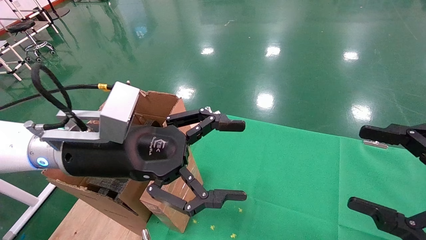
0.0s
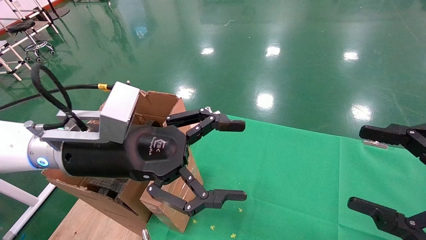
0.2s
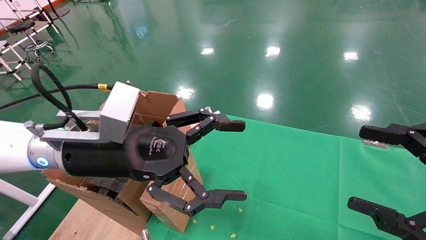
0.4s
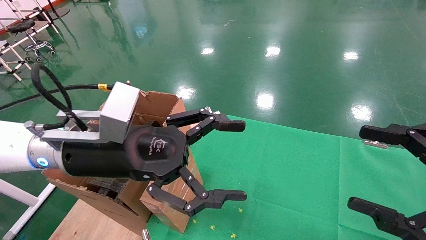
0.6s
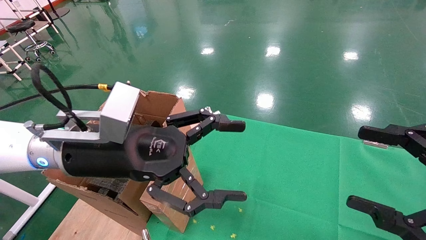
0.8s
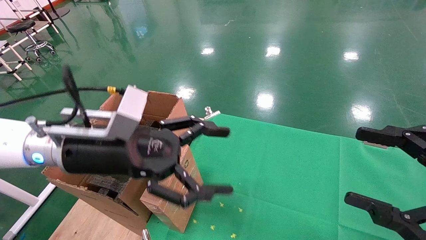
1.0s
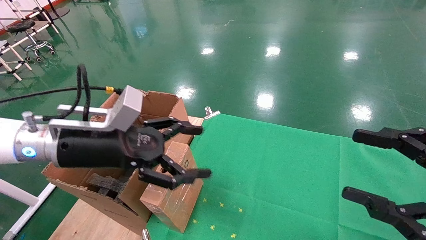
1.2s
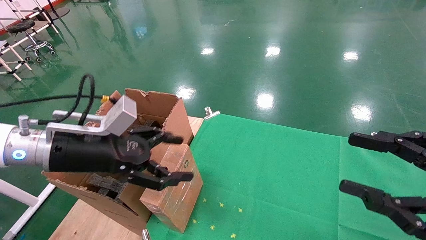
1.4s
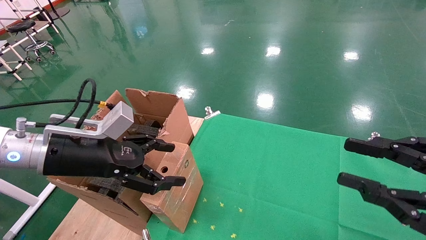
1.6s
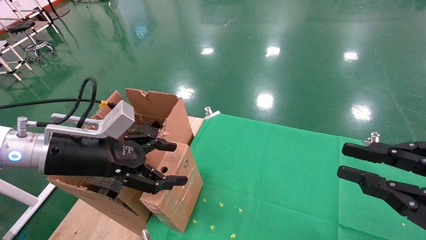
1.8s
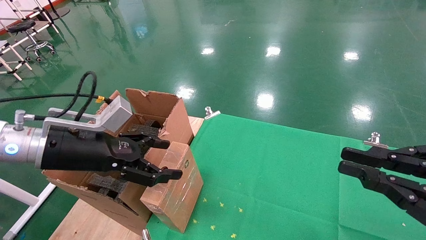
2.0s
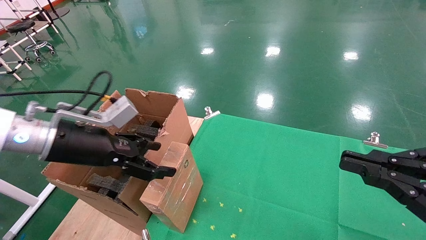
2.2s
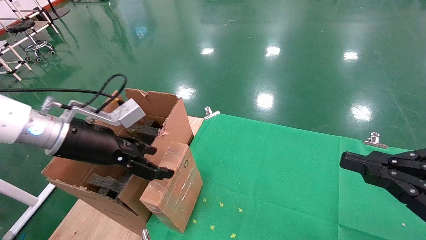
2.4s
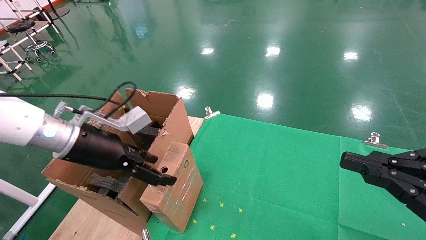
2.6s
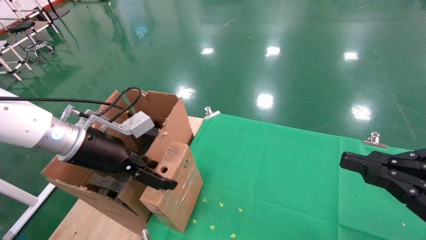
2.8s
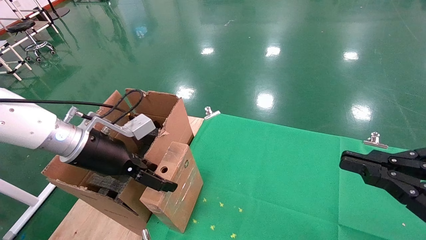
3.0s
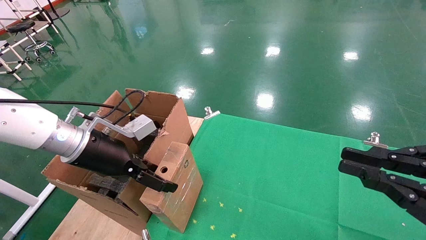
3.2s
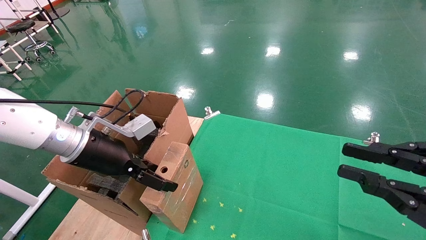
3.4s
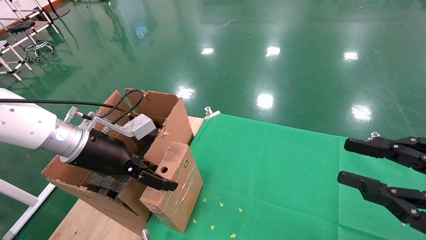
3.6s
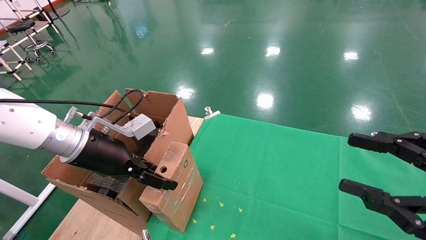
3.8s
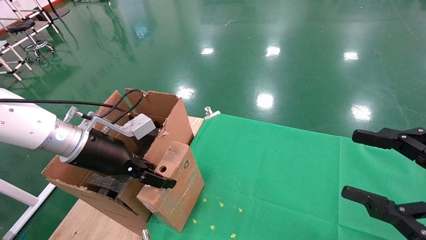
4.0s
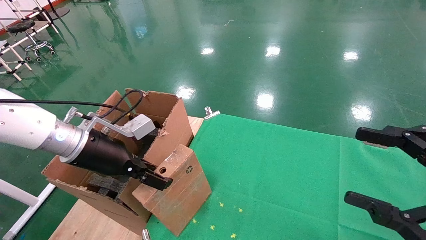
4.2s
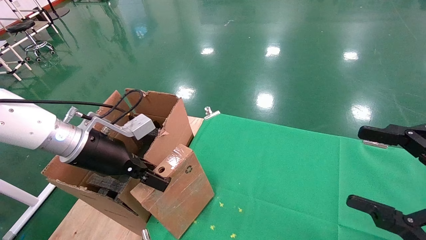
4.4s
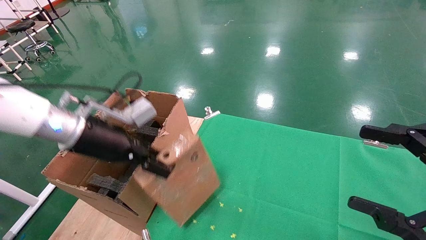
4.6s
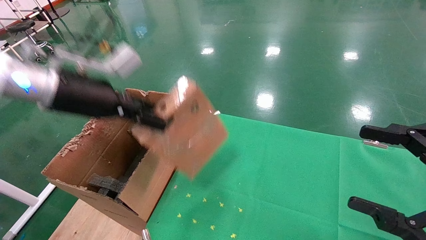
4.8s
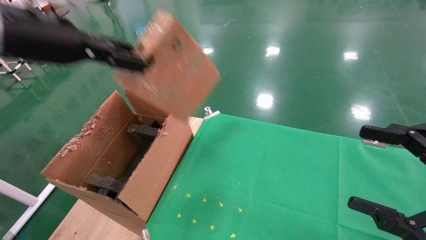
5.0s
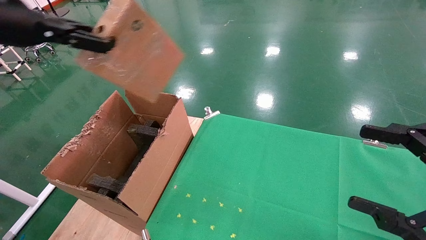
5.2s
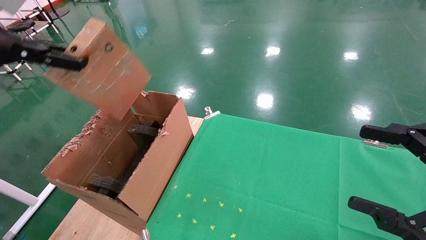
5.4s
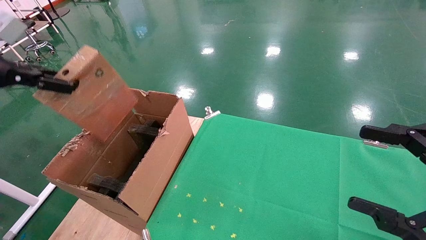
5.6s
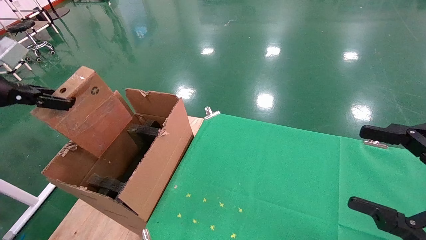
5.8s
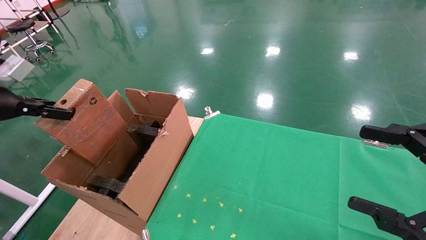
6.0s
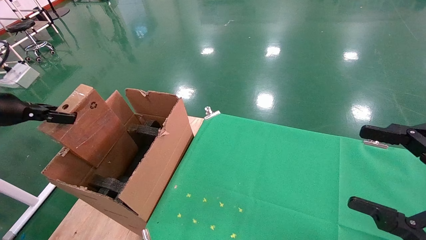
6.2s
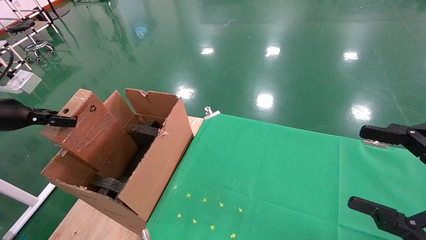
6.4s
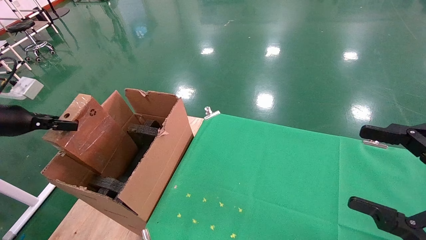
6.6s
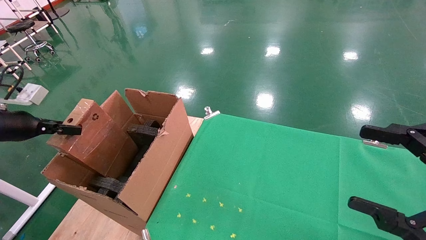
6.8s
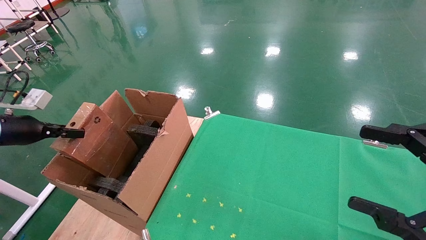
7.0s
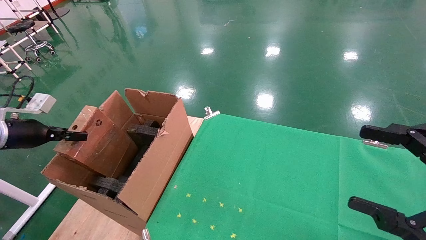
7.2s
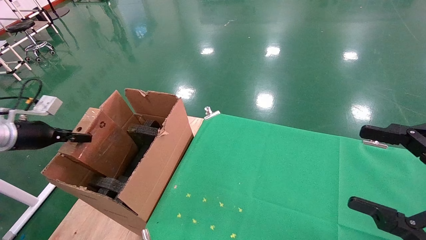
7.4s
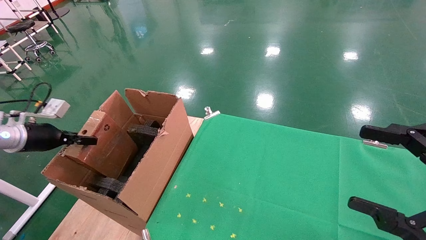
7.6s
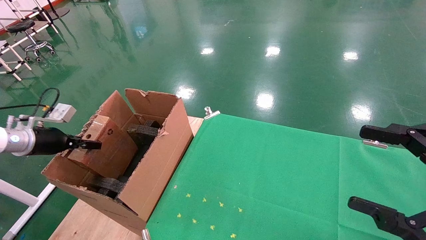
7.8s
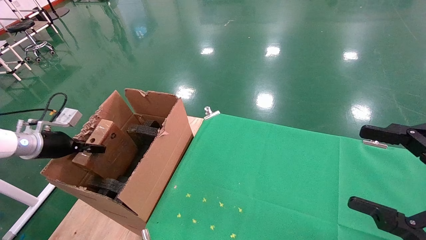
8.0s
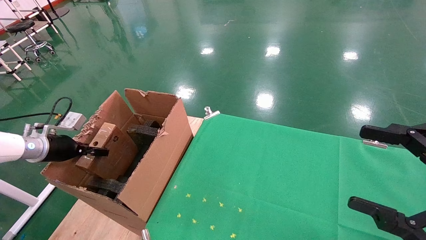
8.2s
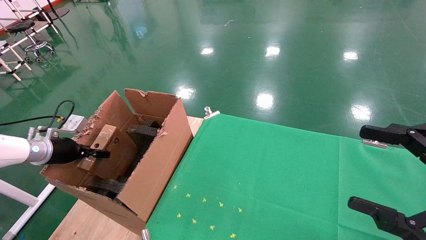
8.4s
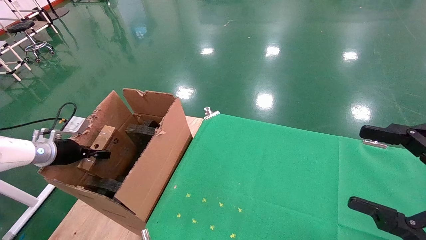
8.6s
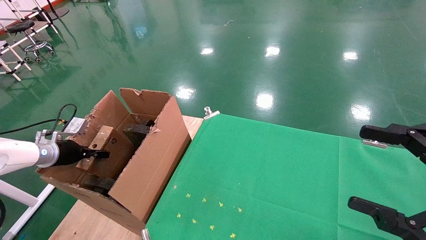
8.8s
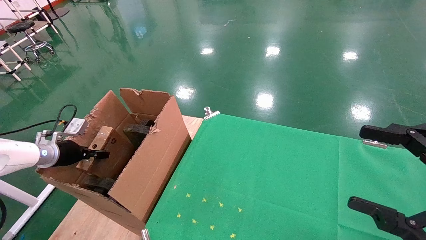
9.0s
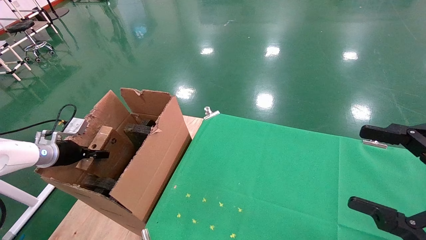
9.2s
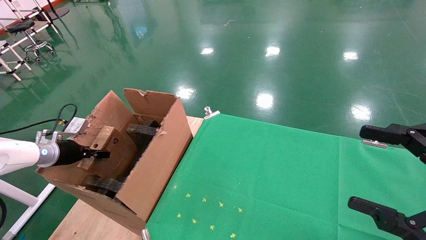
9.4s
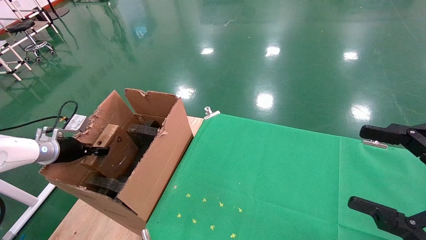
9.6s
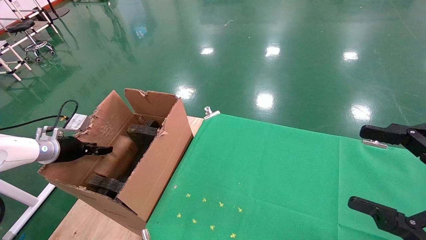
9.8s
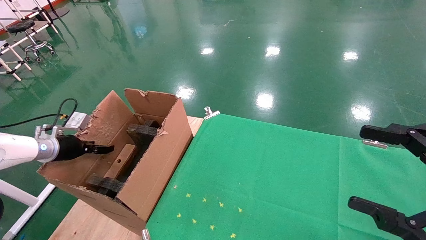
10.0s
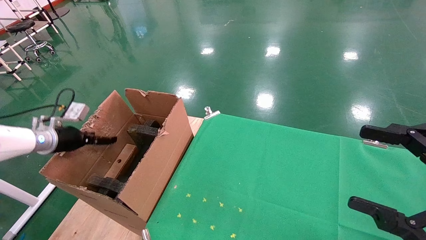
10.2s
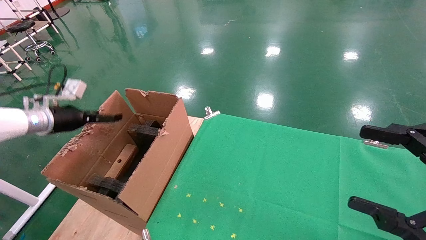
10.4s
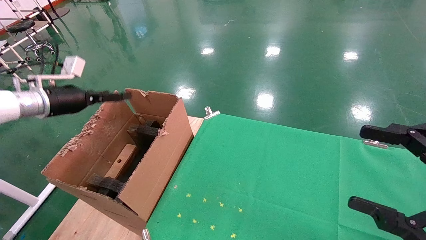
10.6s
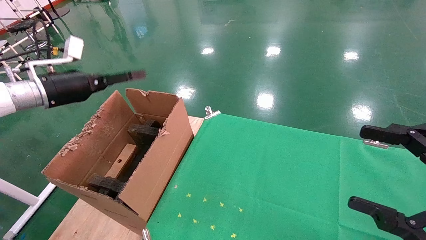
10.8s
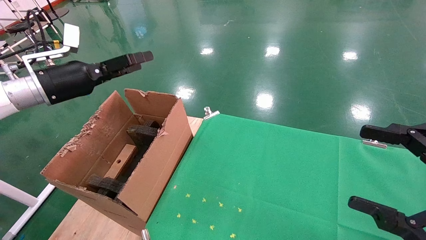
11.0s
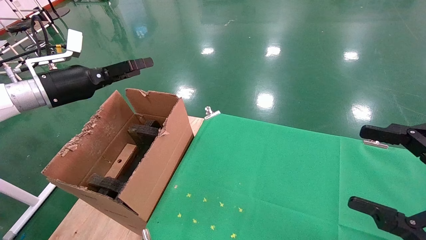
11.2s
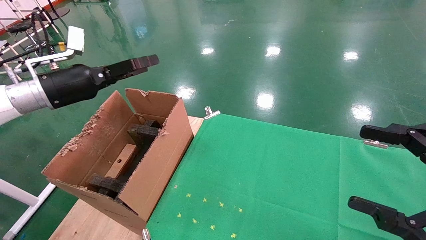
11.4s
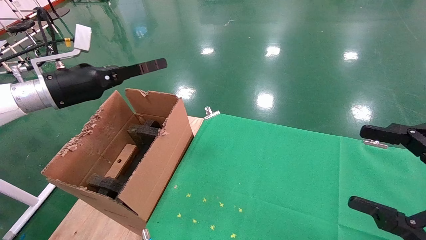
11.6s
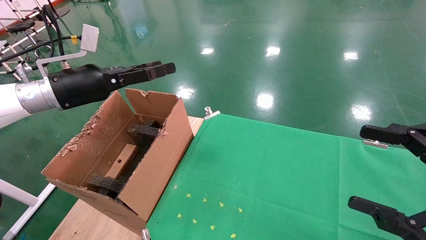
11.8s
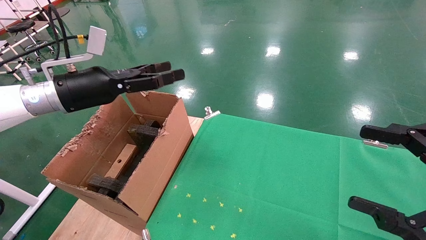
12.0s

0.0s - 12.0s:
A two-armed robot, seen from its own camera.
Task of the whole recording: using a robotic arm to pick up a cardboard box and palace it the carton.
Step, 1.0s - 4.4s: Pick up the mouse and the power cord paper box.
Step, 4.6s - 10.6s: Place the mouse and the power cord paper box into the container.
0.0s - 1.6s: The left gripper travels to the left by approximately 10 cm, while the right gripper closes.
1.6s - 3.0s: The right gripper closes its fingers.
3.0s - 4.4s: The left gripper closes its fingers. Meanwhile the right gripper opens.
4.4s - 6.0s: The left gripper goes about 25 cm to the left.
6.0s - 7.6s: The left gripper travels downward and forward by some 15 cm.
7.6s - 9.0s: The left gripper shifts some 5 cm downward.
9.0s - 10.4s: The left gripper shifts approximately 10 cm upward, and opens.
10.4s - 12.0s: The left gripper shifts some 20 cm to the right and upward.

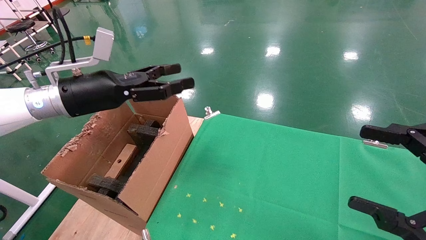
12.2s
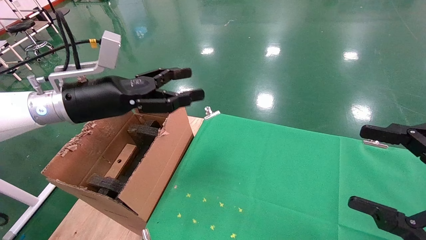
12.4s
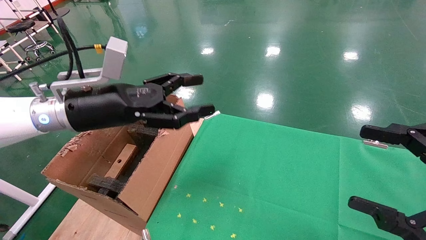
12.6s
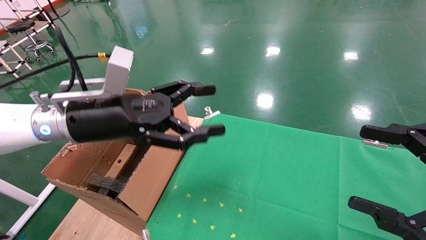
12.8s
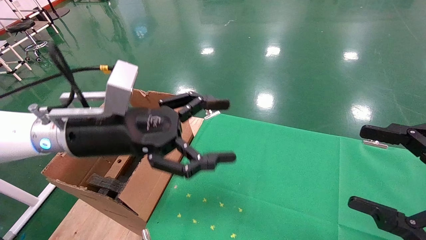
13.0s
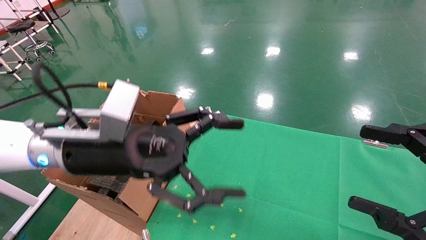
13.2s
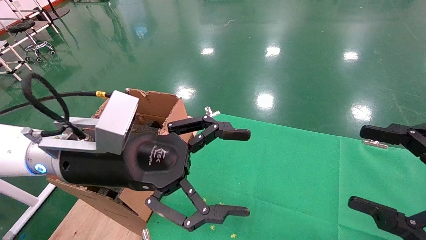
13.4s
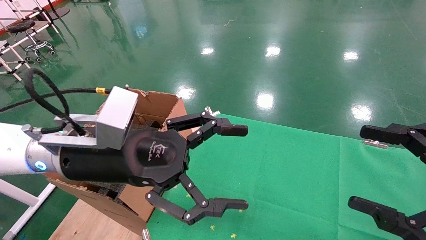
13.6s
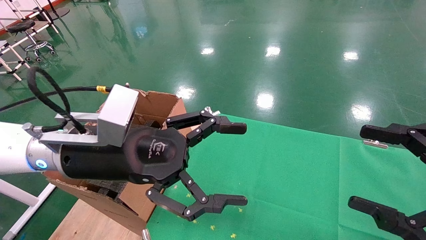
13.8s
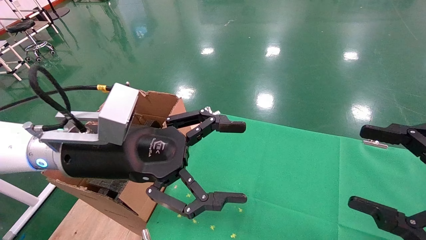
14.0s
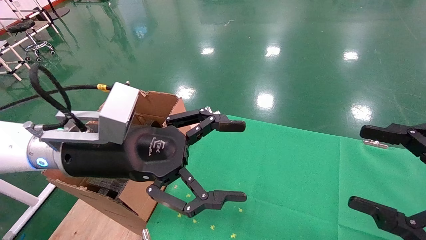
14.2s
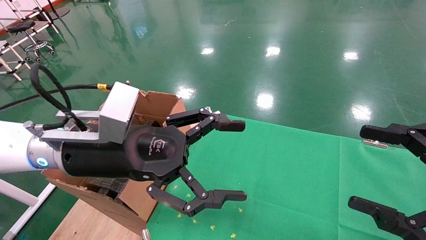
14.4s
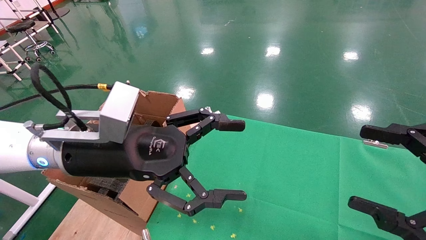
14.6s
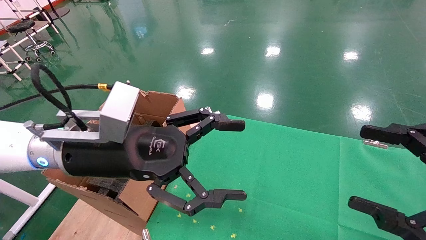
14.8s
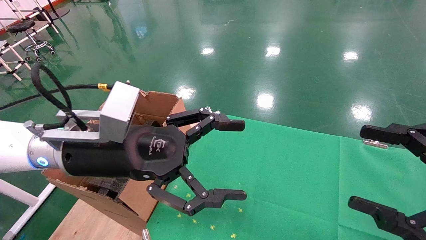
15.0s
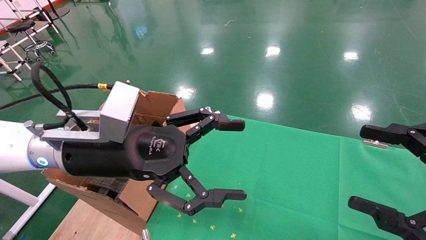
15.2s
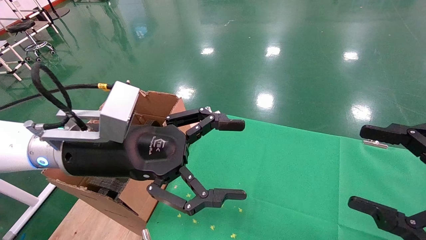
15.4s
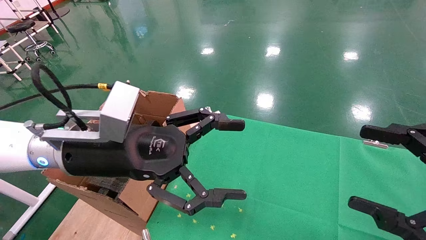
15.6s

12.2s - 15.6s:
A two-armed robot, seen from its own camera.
Task of the whole recording: using a robotic arm to pick up a cardboard box and palace it the carton.
12.2s - 13.8s: The left gripper is displaced to the right and backward by roughly 15 cm.
13.8s - 15.6s: Neither gripper changes place.

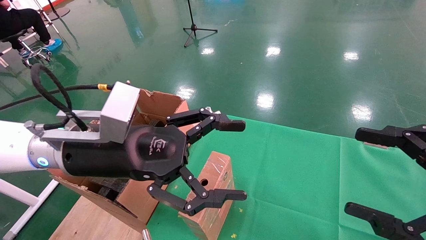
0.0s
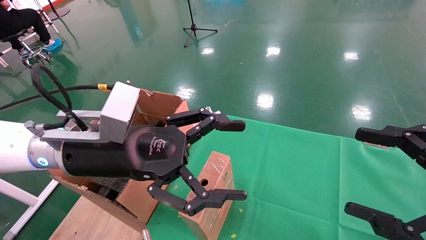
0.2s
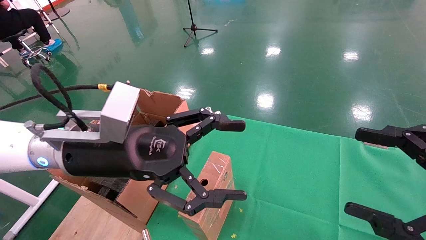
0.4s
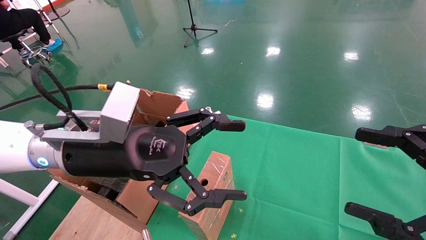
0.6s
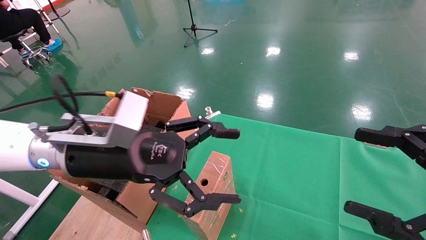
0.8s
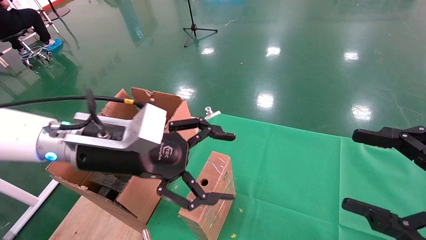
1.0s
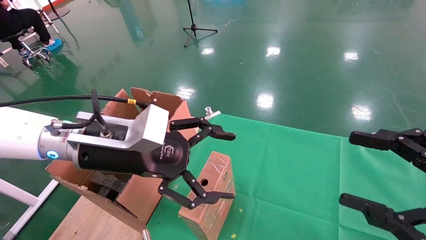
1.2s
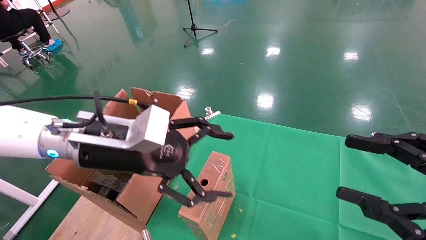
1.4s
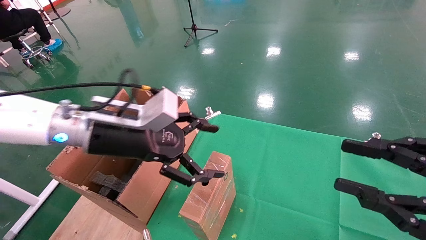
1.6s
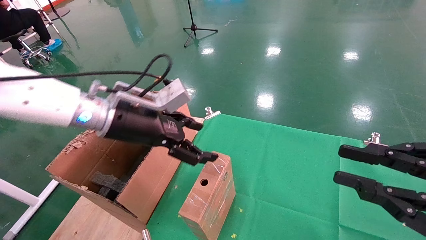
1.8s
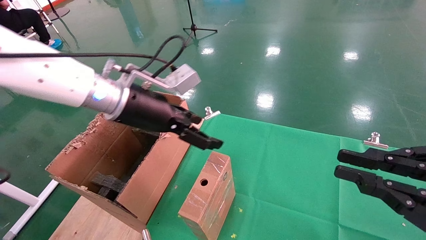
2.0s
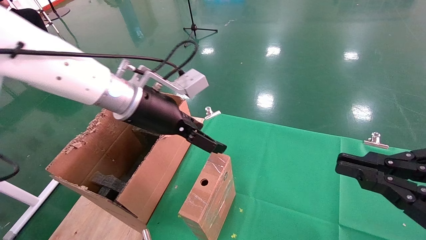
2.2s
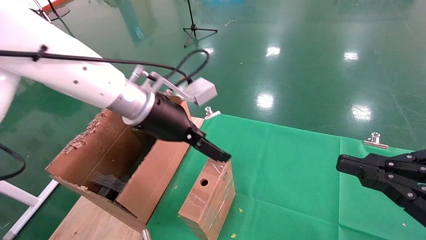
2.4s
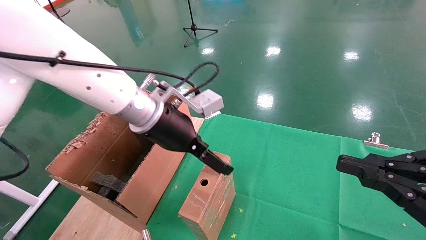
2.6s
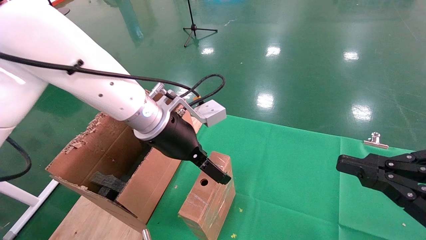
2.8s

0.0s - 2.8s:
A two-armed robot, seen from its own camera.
Task of the whole recording: using a robotic arm to pick up a cardboard box and palace it the carton.
1.4s - 2.8s: The left gripper goes roughly 10 cm to the right and forward. The right gripper closes.
